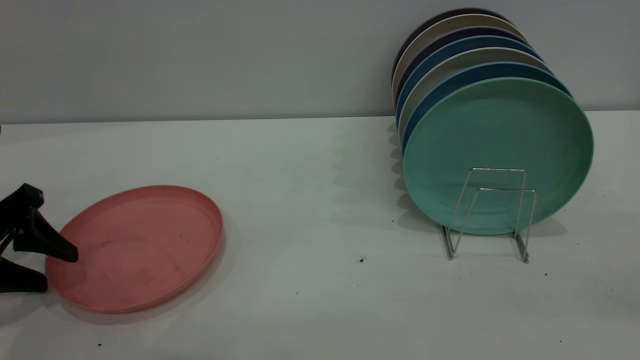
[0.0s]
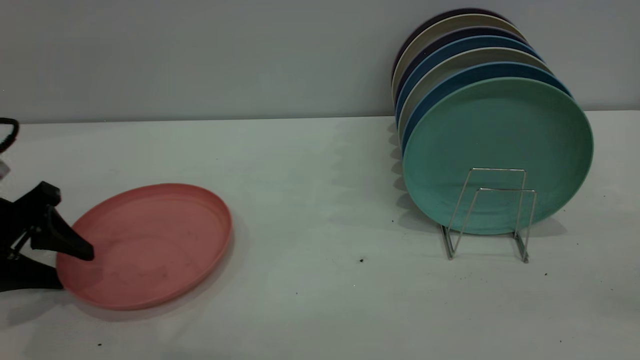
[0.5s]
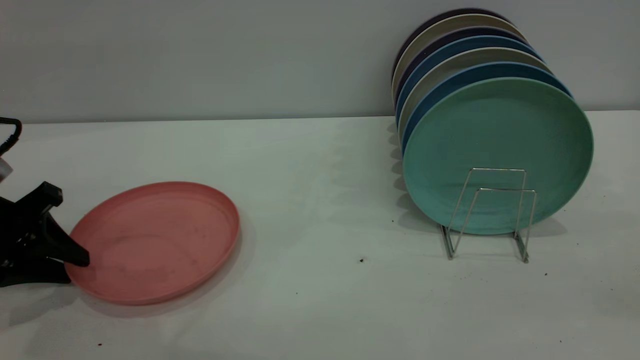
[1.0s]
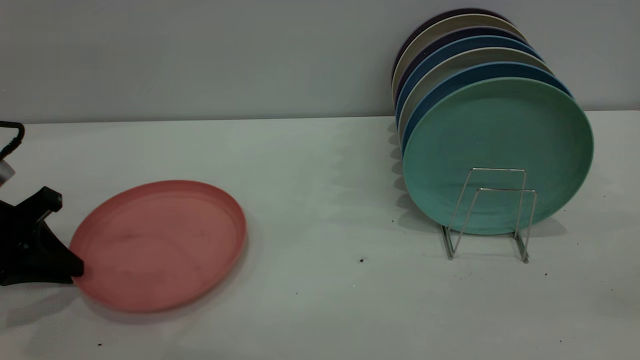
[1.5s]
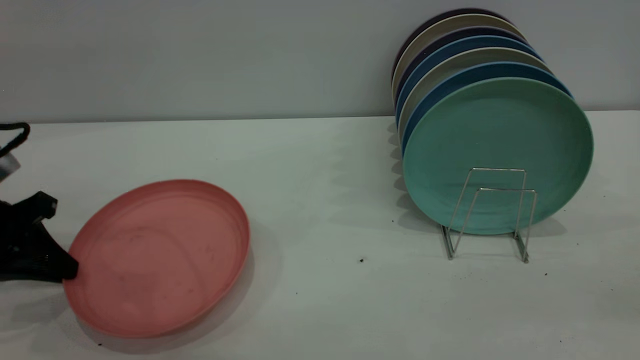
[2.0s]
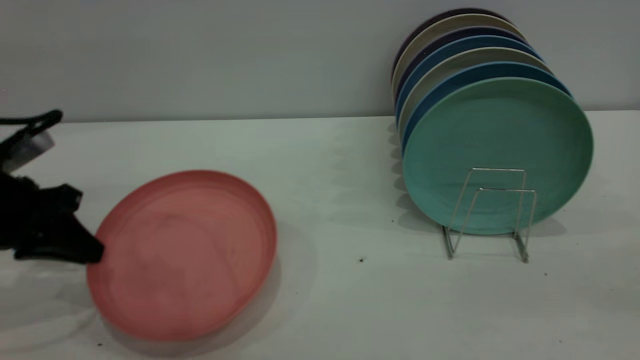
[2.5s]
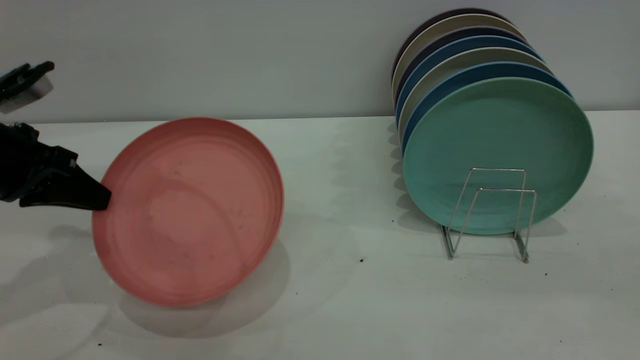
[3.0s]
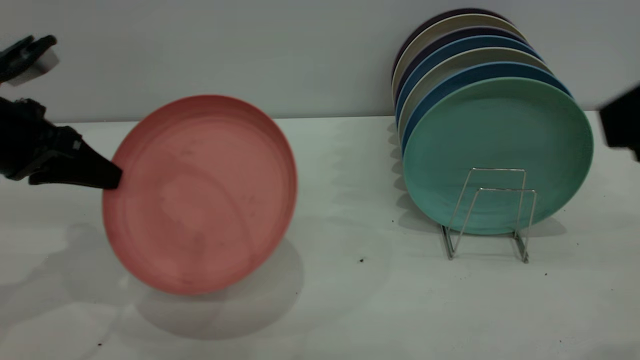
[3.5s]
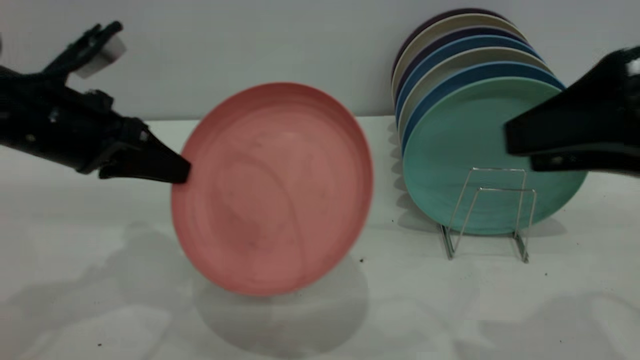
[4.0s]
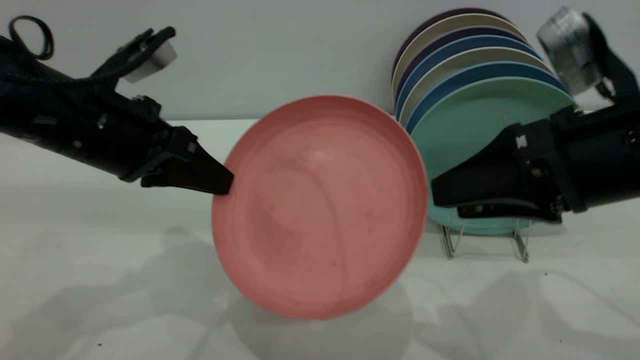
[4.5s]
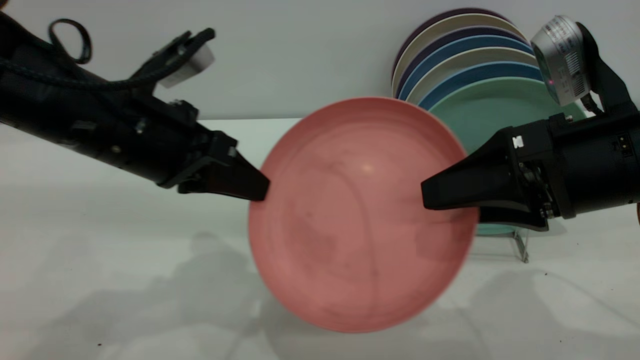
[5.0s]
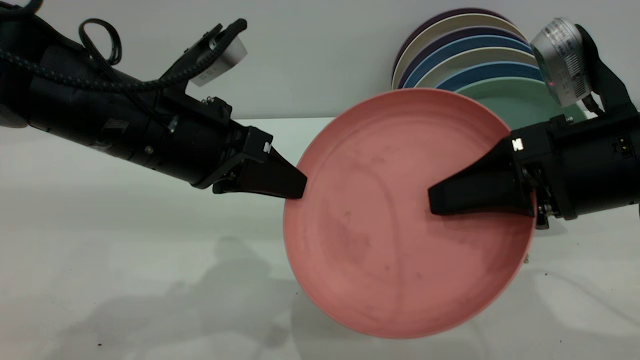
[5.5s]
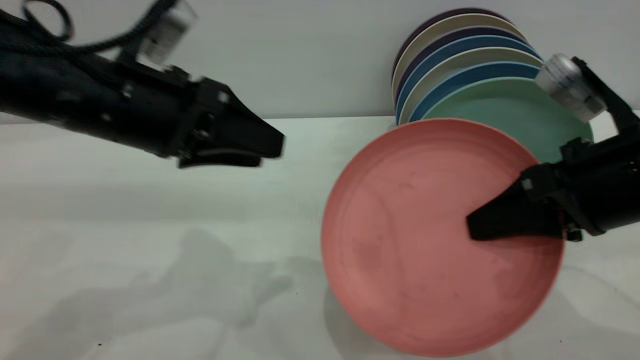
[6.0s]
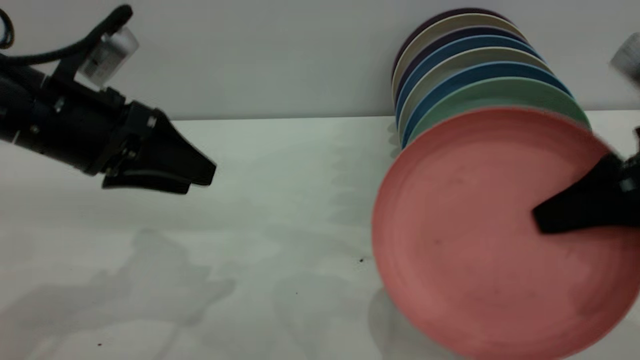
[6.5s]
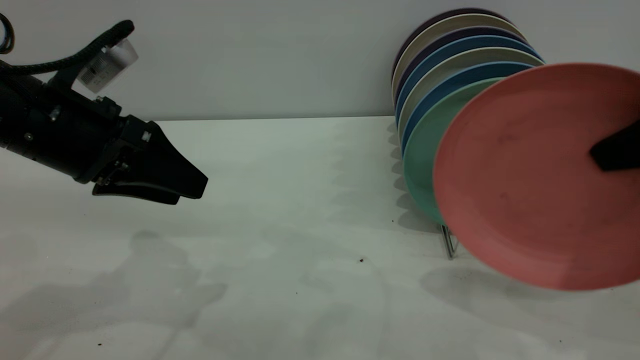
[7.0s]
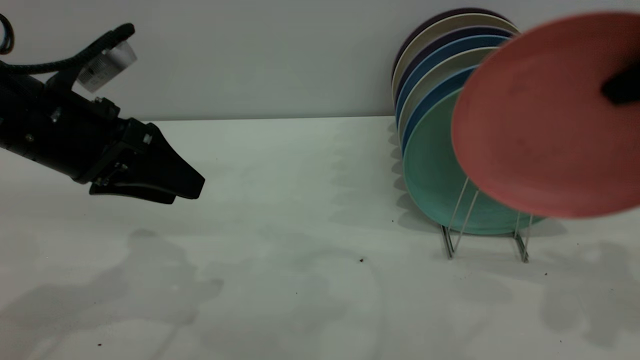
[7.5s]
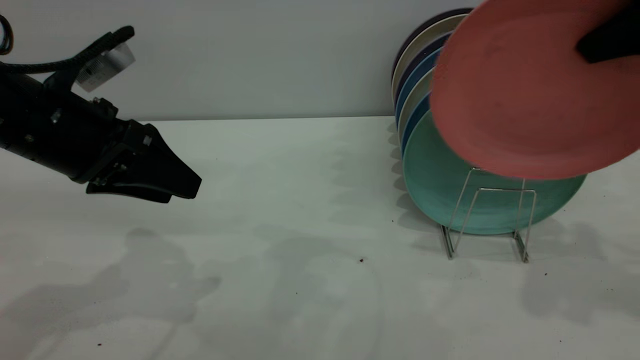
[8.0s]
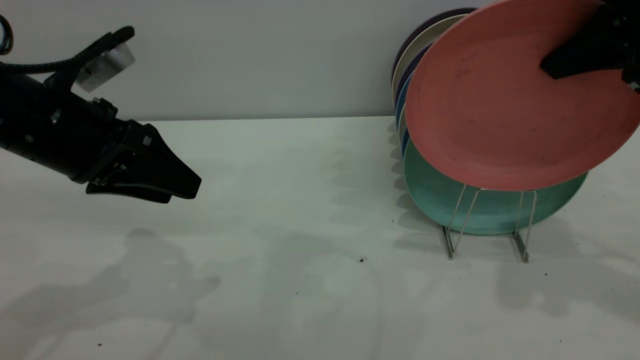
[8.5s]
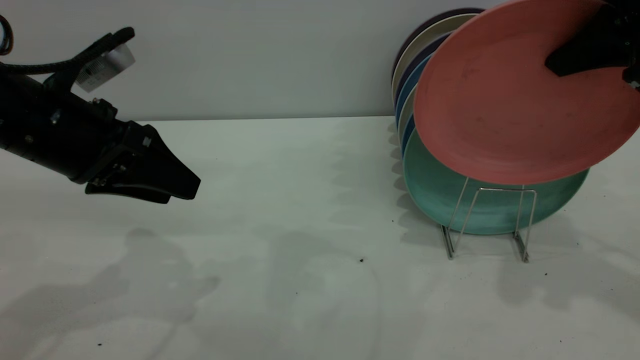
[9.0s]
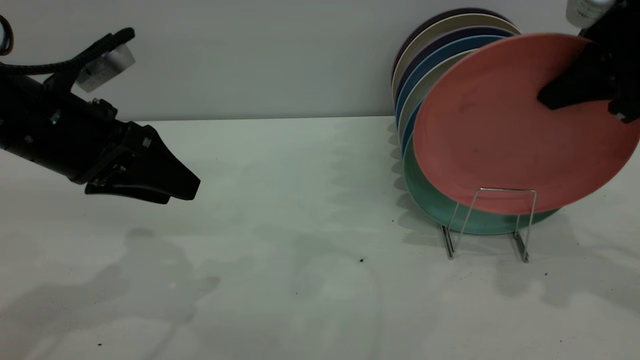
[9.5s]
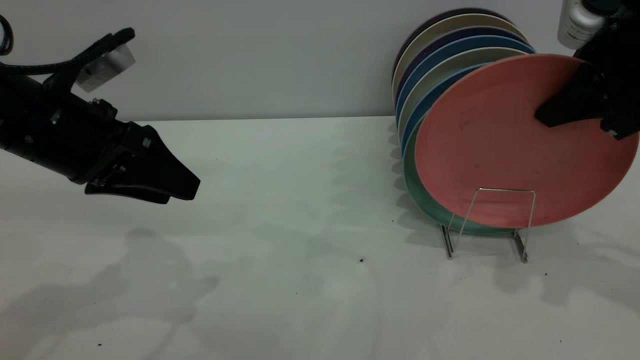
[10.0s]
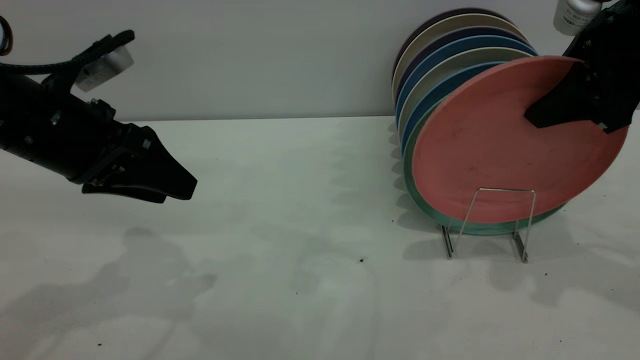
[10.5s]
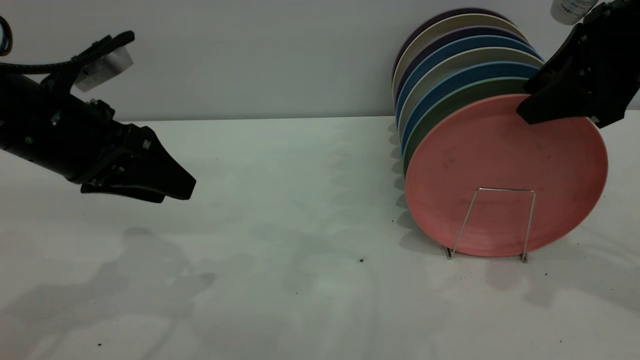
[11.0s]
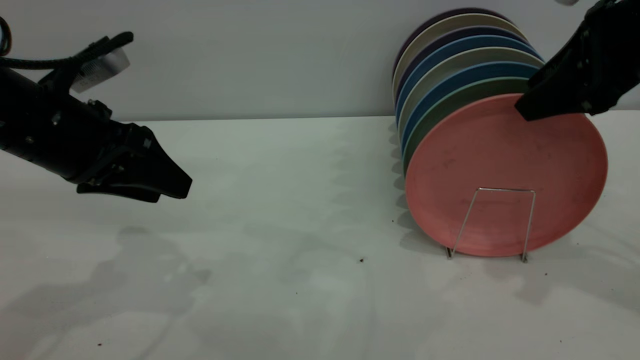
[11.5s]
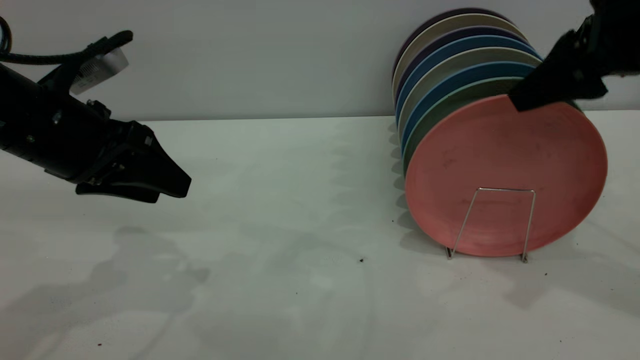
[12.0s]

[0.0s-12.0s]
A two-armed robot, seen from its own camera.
Task of the whole recording: put the plate on the plate rack.
Step, 0.0s to 2.0s: Pick up the plate with the left gripper.
Step, 2.5s to 5.5s: Pass the plate from the left gripper to the right gripper.
0.0s to 2.0s: The left gripper closes its fingers.
2.0s to 4.0s: The right gripper travels forward and downward by some 20 cm. The left gripper moves to the right and upward, about 15 cm.
4.0s to 6.0s: The right gripper shifts about 10 cm downward, and closes. Meanwhile the left gripper is displaced to the right by some 5 cm, and opens up.
6.0s to 8.0s: The right gripper moves upward, some 15 cm. Meanwhile the left gripper travels to the left by some 5 cm.
8.0s to 10.0s: The right gripper heads downward, covering approximately 5 cm.
10.0s to 12.0s: The right gripper opens its fingers.

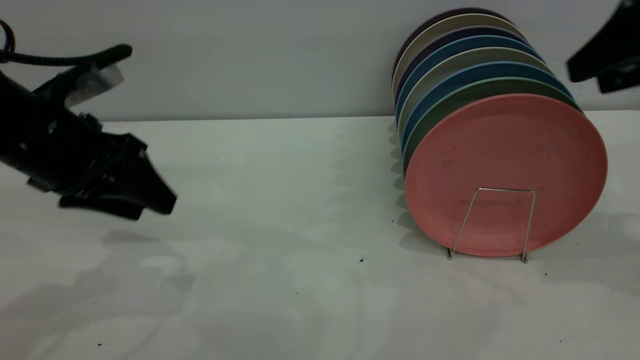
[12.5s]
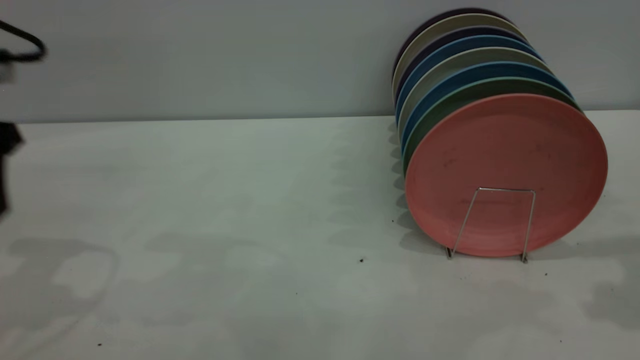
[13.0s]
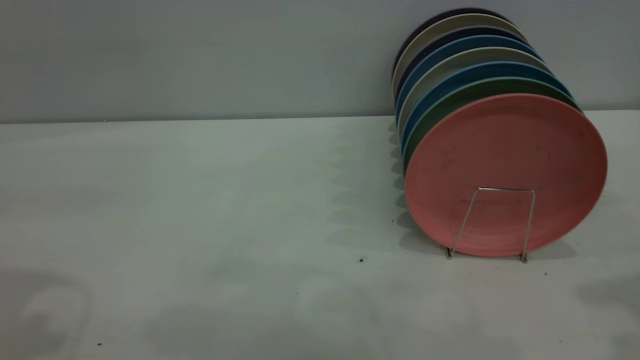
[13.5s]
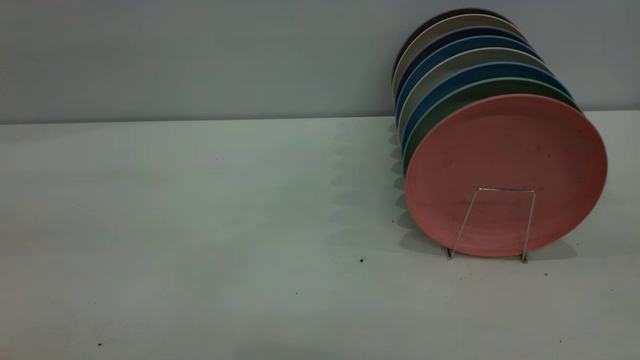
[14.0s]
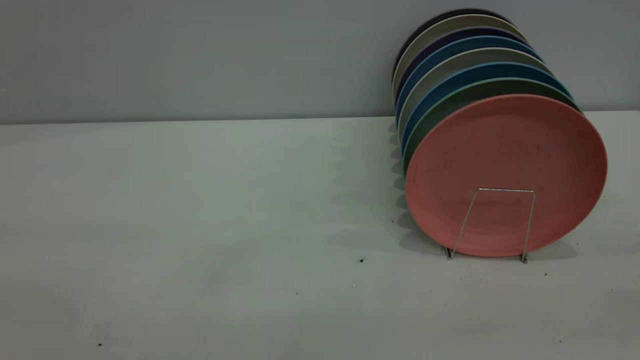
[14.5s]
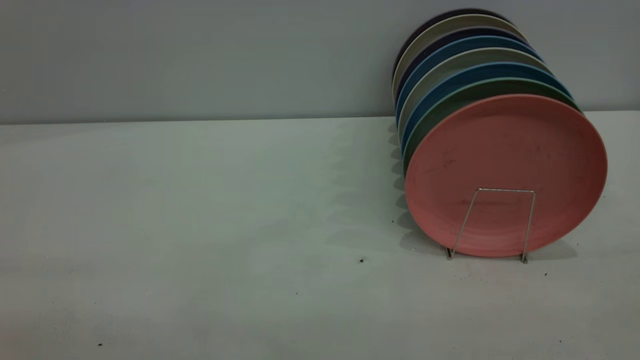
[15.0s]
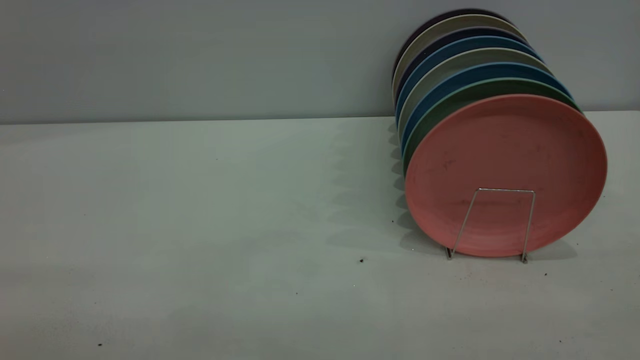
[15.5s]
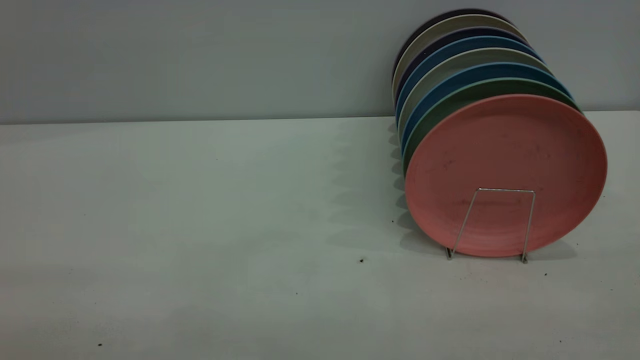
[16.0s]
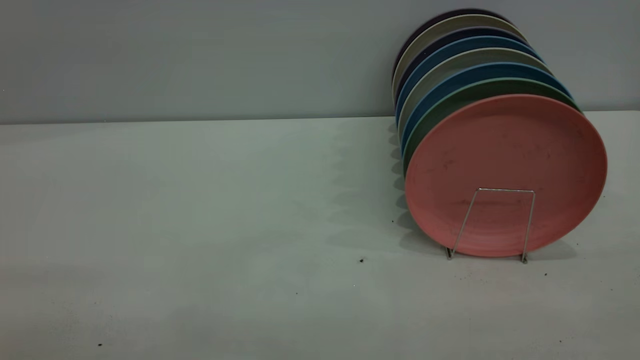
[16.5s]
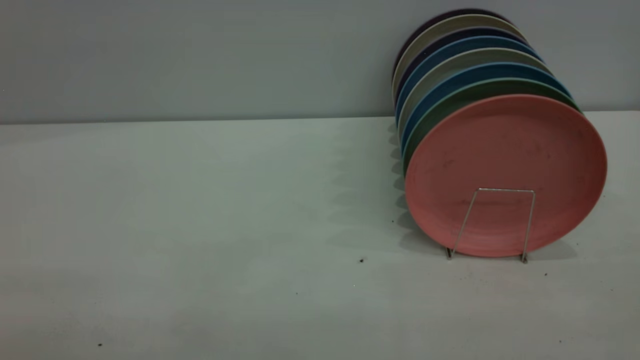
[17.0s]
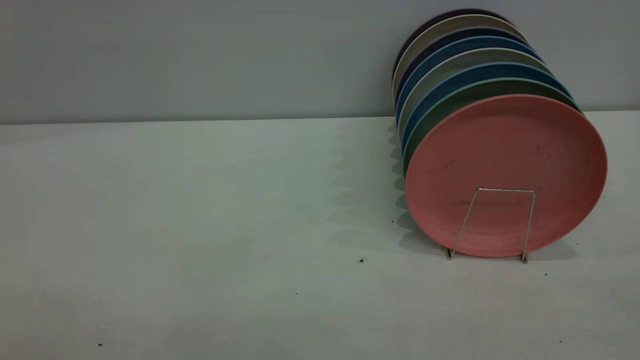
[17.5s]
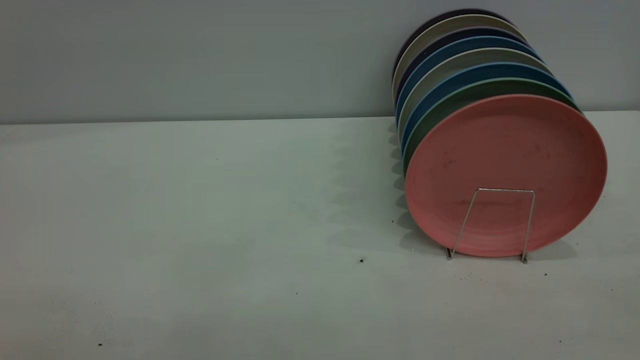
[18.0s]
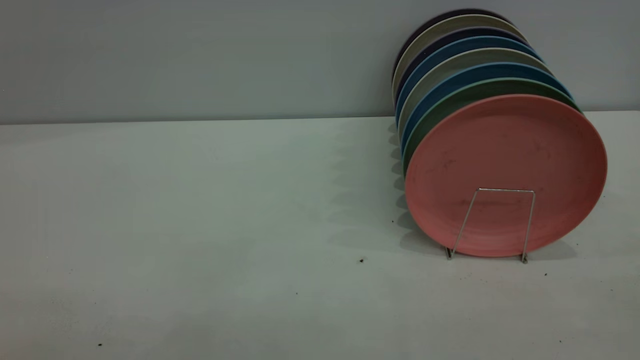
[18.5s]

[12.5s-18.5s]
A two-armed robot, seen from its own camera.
Task of the whole recording: put the plate on the plate rack.
12.5s to 14.5s: The left gripper heads backward and upward, covering roughly 30 cm. Meanwhile the right gripper is displaced backward by about 30 cm.

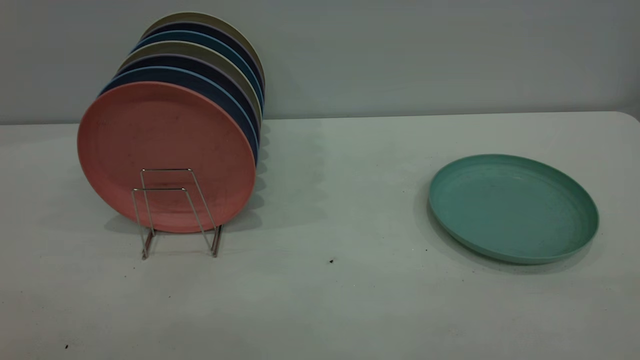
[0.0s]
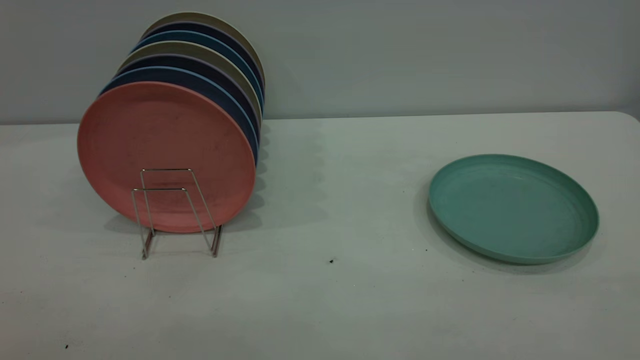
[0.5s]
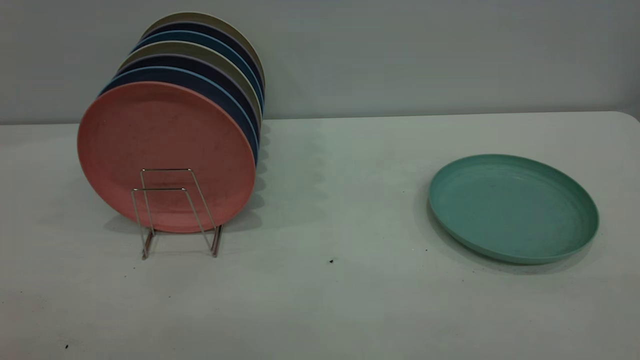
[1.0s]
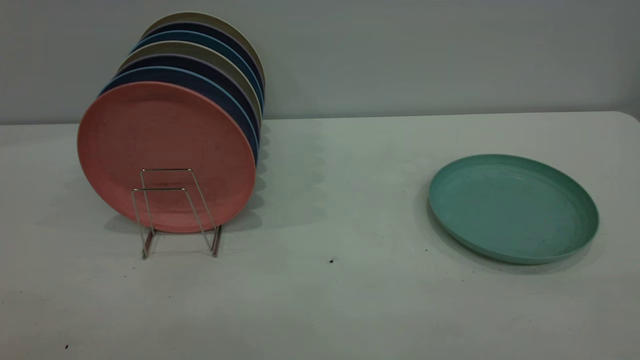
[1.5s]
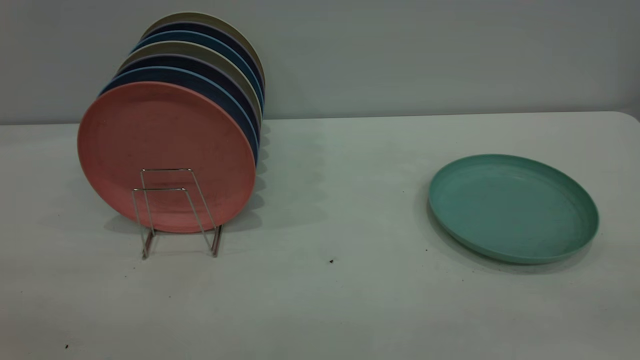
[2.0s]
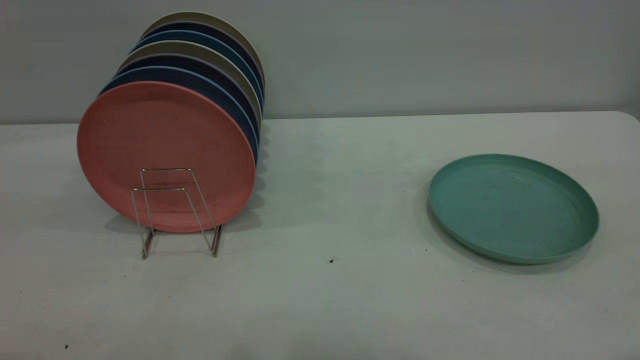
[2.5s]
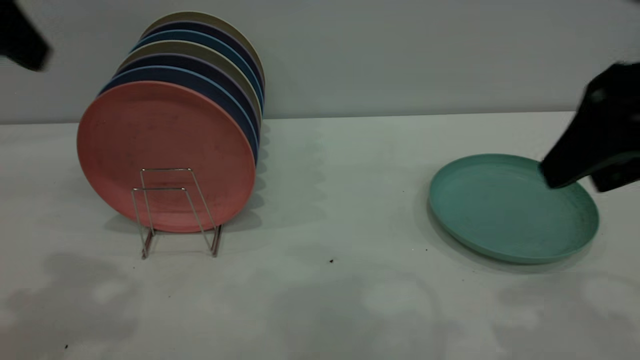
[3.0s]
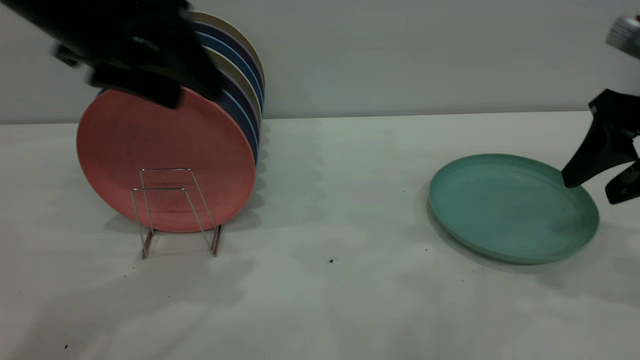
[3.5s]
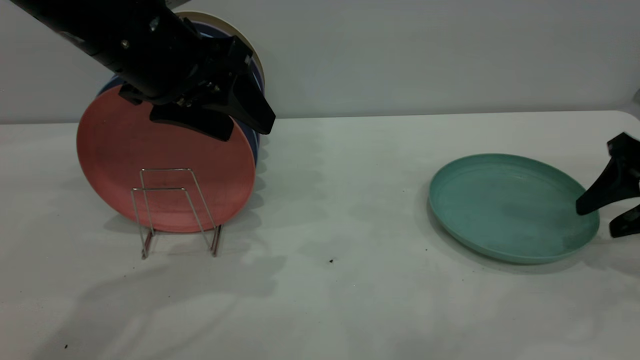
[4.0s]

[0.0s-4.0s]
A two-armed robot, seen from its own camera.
Task of the whole recording: the right gripper grasp the green plate, the right gripper pass the green plate to the left gripper, and the left gripper place the green plate on the plate rack.
2.0s to 4.0s: The left gripper moves forward and to the right, about 35 cm. The right gripper goes about 40 cm forward and downward.
